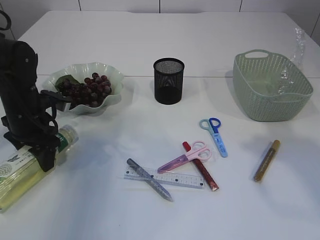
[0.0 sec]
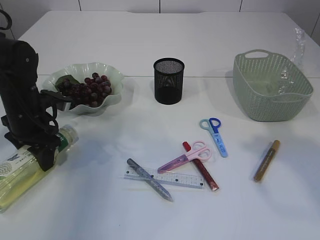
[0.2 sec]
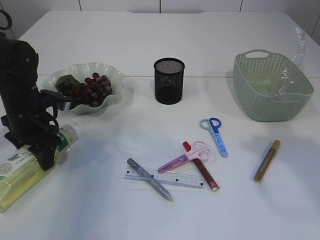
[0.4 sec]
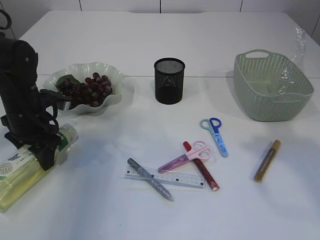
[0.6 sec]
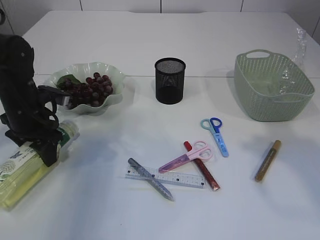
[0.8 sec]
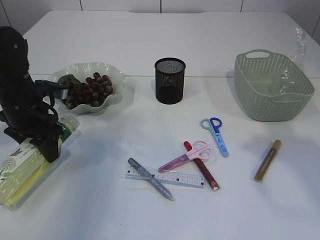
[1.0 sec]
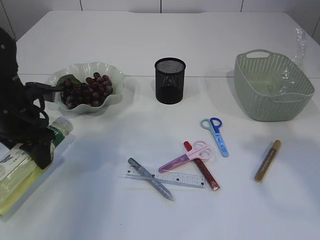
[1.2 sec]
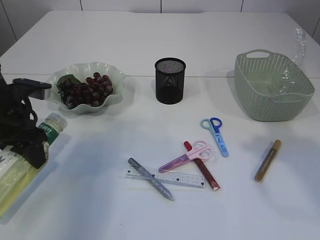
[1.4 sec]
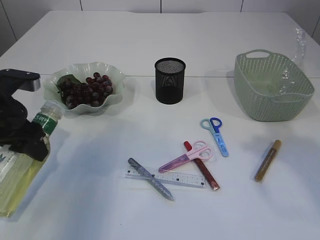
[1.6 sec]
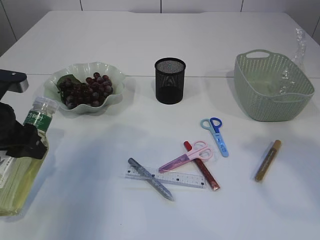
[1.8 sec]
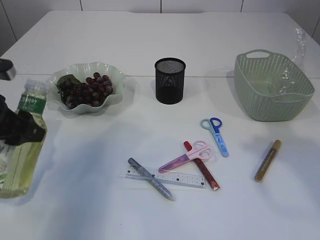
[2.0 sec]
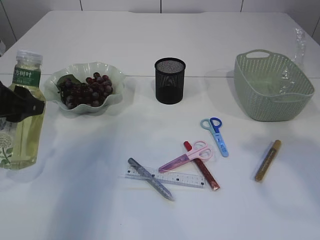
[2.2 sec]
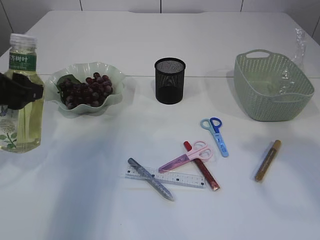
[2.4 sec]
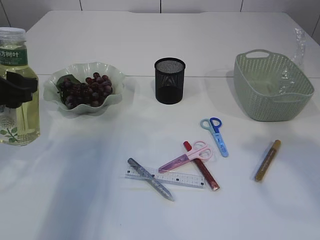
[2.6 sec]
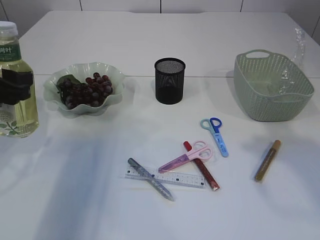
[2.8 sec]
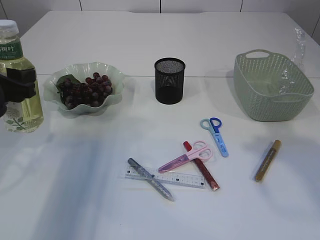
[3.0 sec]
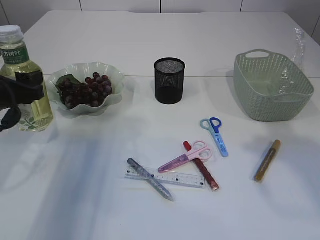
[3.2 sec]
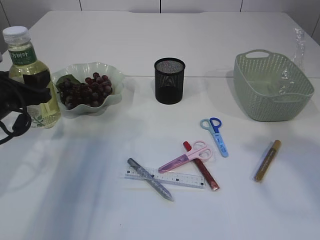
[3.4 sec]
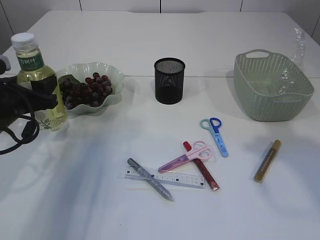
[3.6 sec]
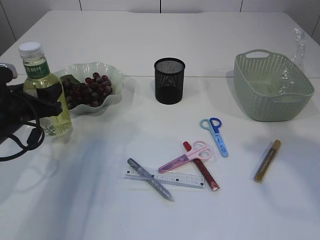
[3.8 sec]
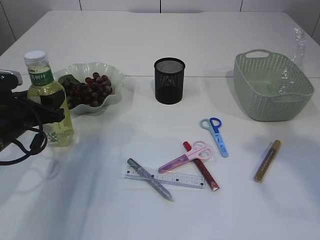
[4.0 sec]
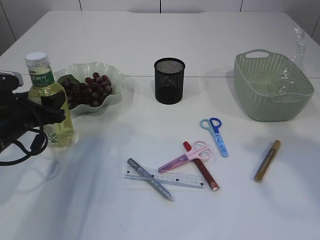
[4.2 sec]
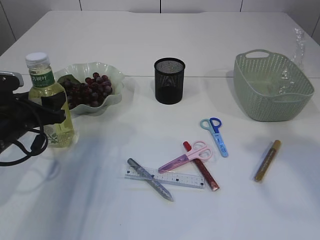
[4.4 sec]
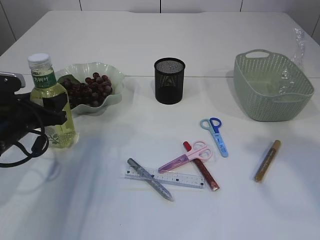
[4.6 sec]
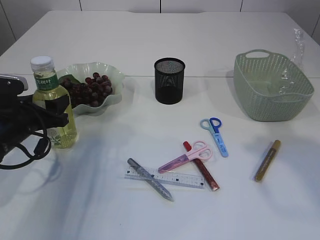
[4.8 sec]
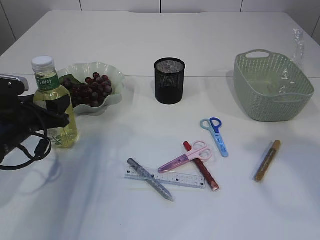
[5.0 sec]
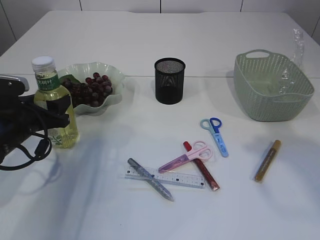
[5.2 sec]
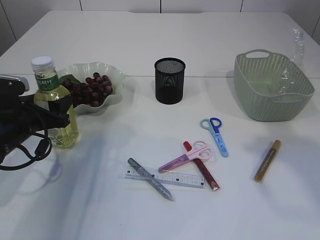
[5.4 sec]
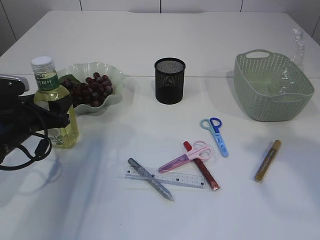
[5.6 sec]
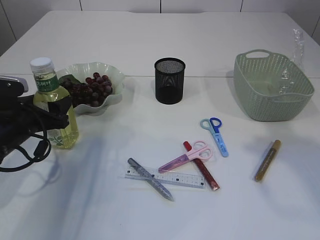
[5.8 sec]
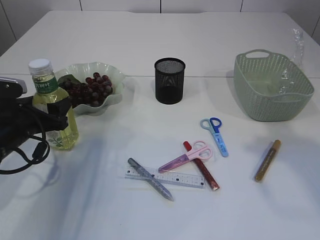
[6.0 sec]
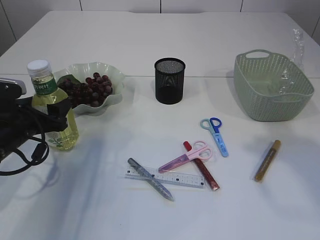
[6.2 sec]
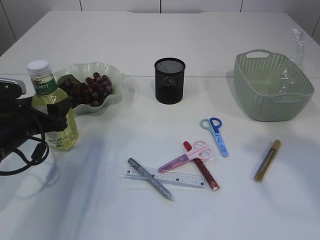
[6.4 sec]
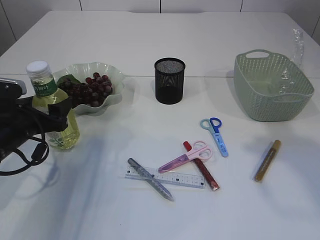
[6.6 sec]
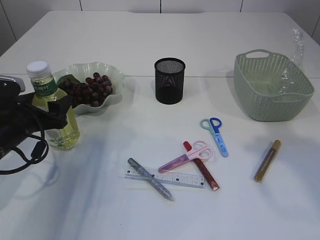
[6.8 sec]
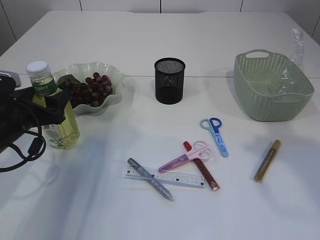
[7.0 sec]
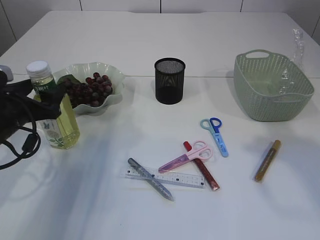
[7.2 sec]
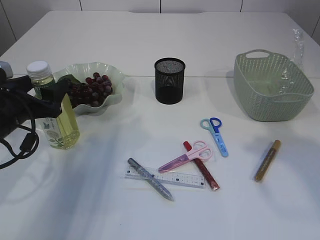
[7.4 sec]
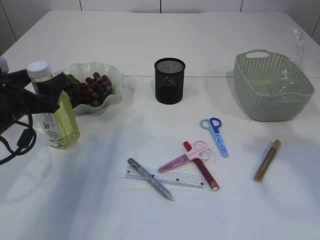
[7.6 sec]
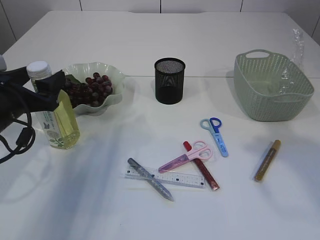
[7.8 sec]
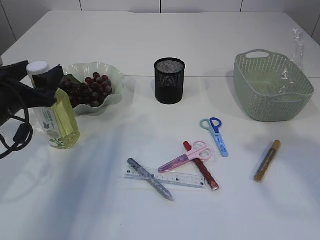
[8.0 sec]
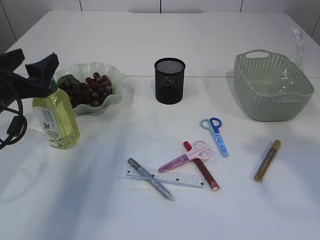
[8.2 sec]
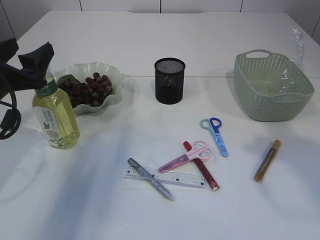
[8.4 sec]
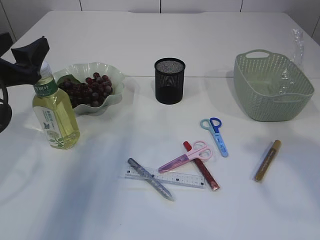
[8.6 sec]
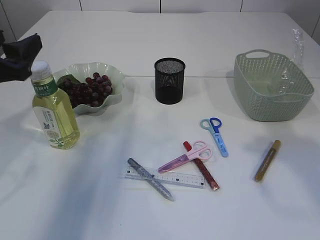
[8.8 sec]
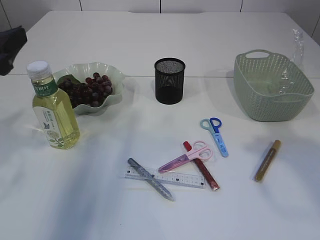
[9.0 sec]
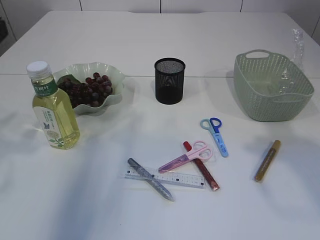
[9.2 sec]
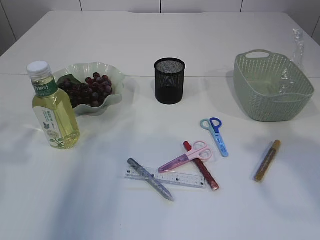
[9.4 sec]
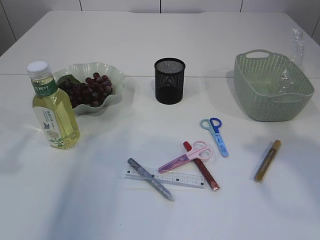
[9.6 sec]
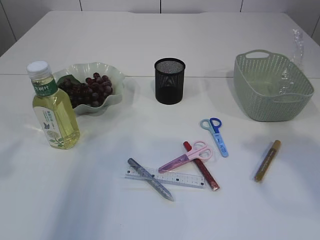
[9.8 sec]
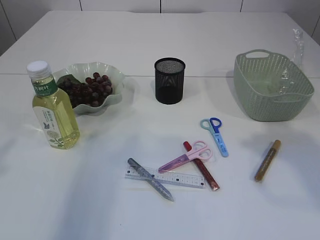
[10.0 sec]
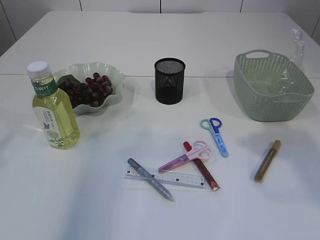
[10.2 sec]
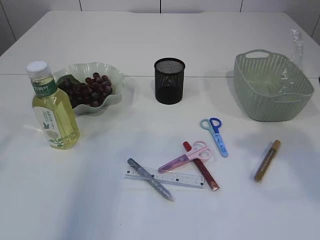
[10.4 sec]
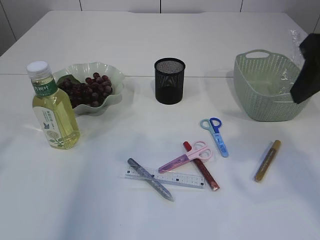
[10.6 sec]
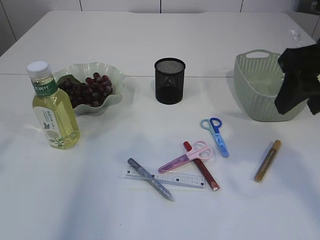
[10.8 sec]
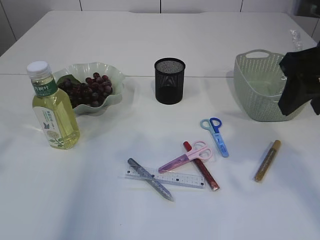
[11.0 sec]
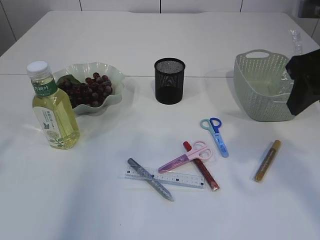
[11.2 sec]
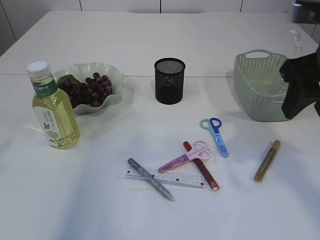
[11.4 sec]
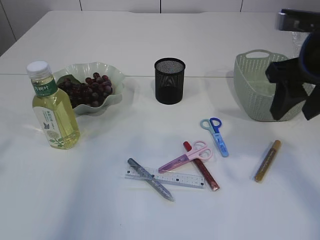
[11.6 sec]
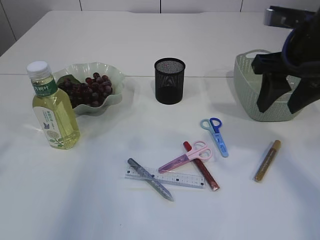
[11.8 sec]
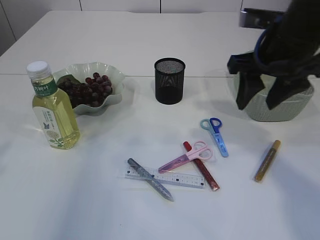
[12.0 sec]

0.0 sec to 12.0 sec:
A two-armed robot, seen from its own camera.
Step, 1.4 sec to 8.8 sec: Place the bottle.
0.0 sec to 1.6 sec: The left gripper travels backward and upward by about 10 cm.
3.0 sec to 4.4 sec: The left gripper moves downward, roughly 10 cm.
4.4 sec to 6.0 sec: Neither gripper changes place.
6.0 sec to 7.6 sec: The left gripper changes place by some 5 cm.
7.6 sec to 9.0 sec: The left gripper moves upward and backward, about 10 cm.
9.0 sec to 10.4 sec: The left gripper travels upward and backward by some 15 cm.
10.4 sec to 12.0 sec: The right gripper moves forward, to the left and downward, approximately 15 cm.

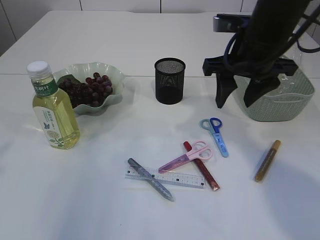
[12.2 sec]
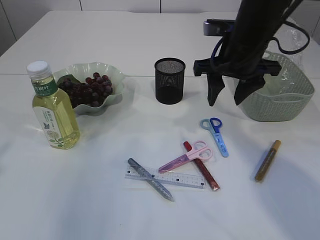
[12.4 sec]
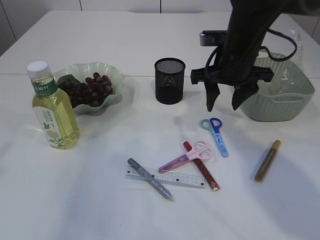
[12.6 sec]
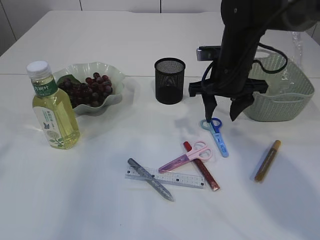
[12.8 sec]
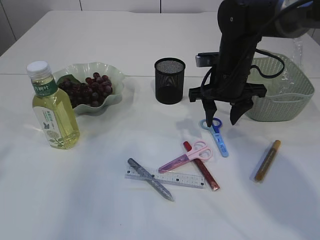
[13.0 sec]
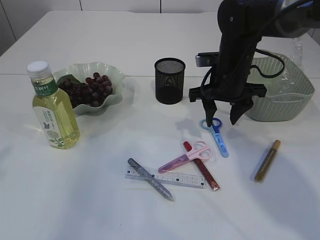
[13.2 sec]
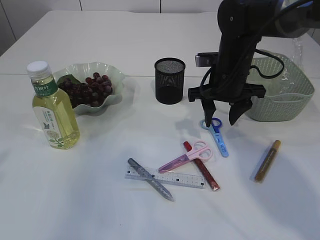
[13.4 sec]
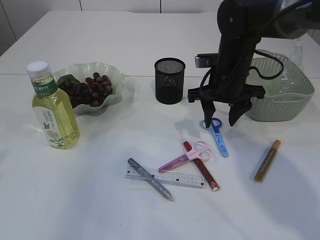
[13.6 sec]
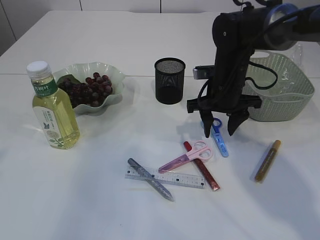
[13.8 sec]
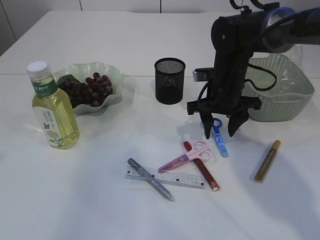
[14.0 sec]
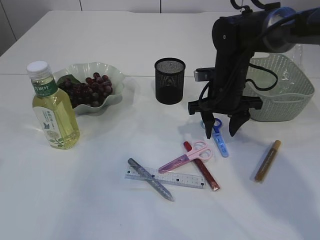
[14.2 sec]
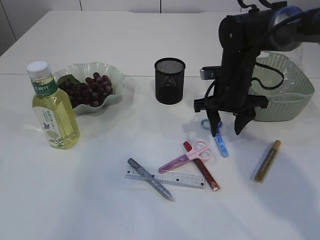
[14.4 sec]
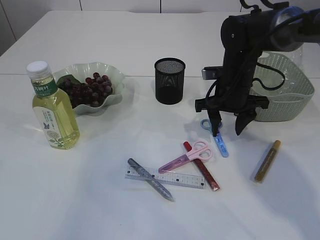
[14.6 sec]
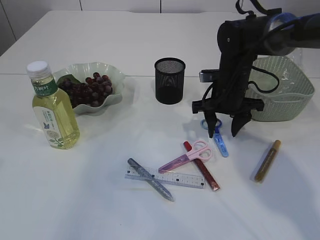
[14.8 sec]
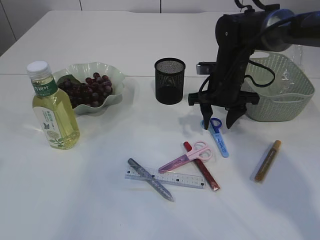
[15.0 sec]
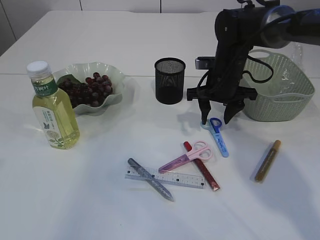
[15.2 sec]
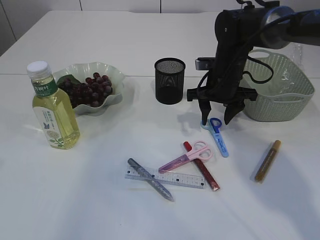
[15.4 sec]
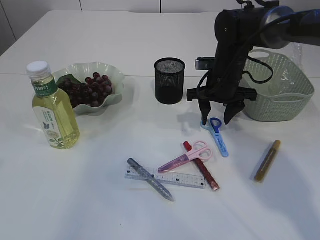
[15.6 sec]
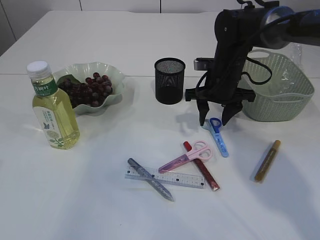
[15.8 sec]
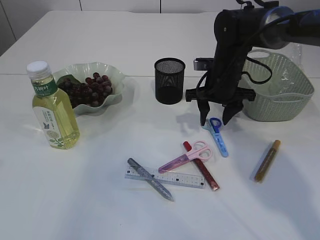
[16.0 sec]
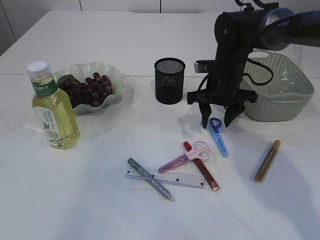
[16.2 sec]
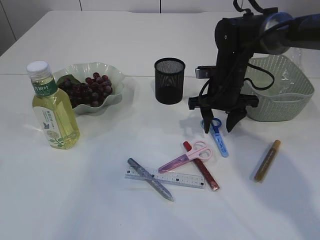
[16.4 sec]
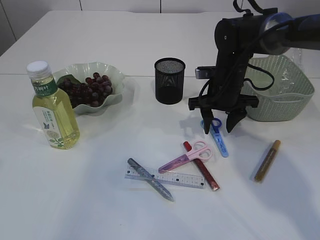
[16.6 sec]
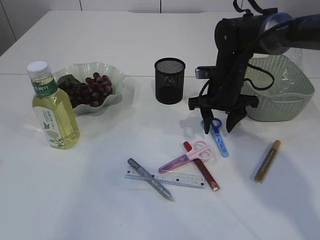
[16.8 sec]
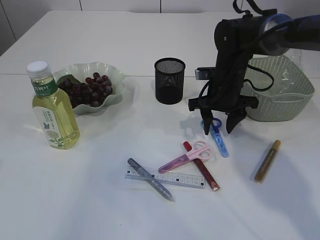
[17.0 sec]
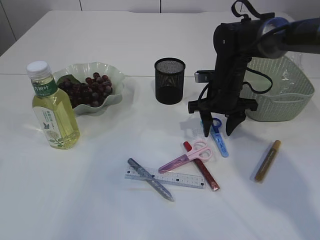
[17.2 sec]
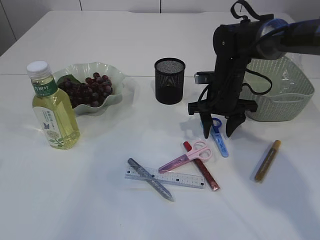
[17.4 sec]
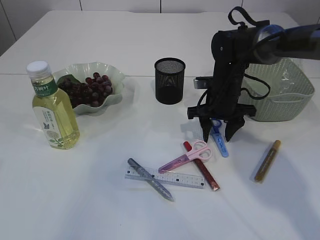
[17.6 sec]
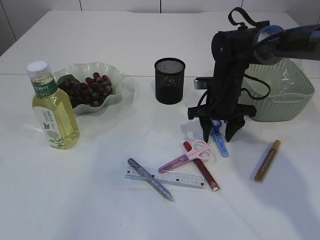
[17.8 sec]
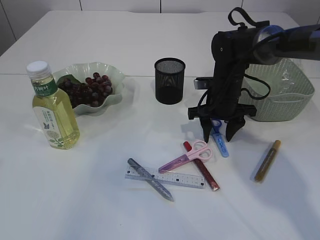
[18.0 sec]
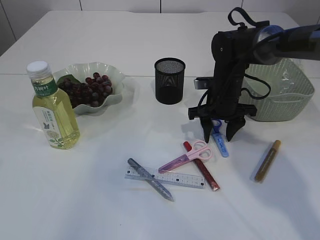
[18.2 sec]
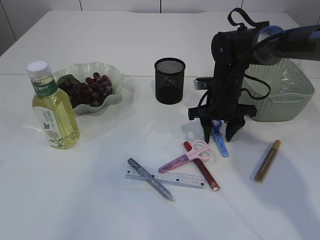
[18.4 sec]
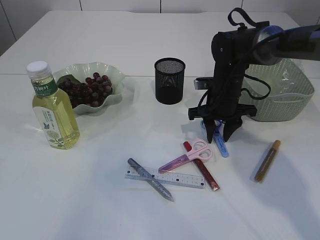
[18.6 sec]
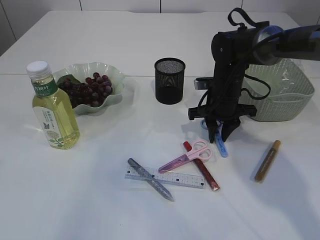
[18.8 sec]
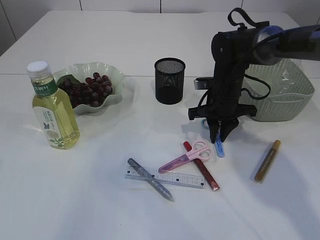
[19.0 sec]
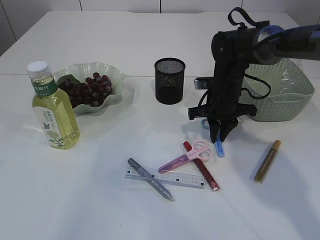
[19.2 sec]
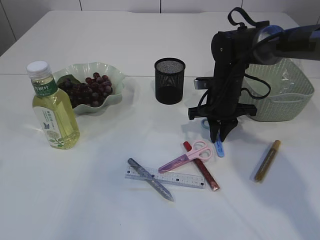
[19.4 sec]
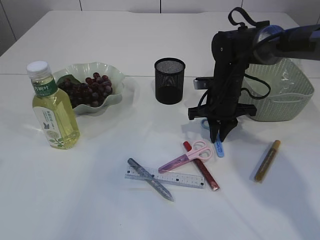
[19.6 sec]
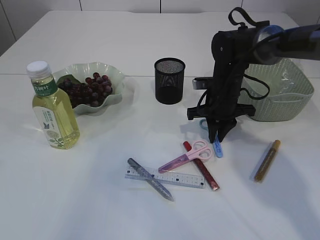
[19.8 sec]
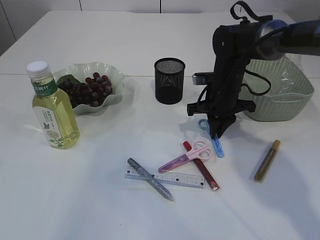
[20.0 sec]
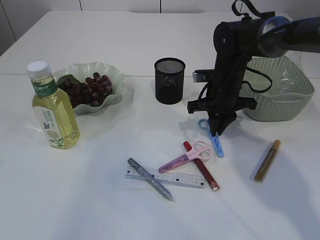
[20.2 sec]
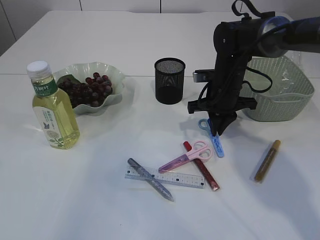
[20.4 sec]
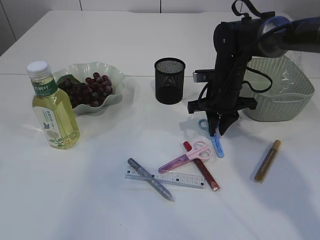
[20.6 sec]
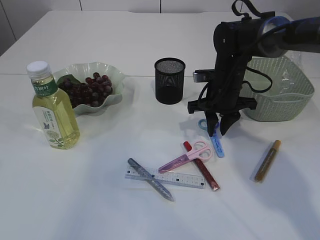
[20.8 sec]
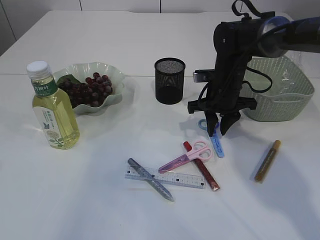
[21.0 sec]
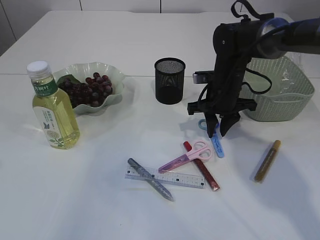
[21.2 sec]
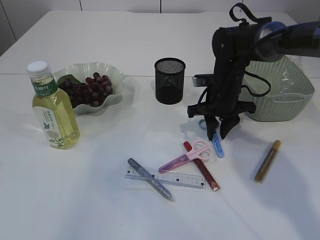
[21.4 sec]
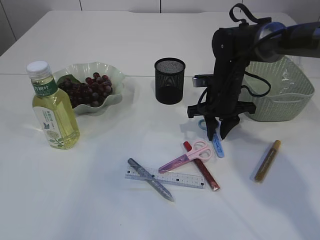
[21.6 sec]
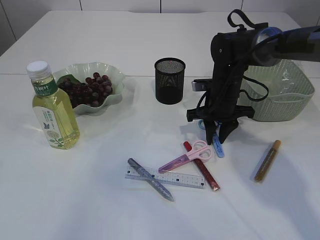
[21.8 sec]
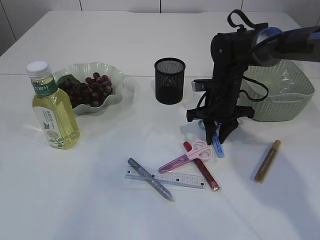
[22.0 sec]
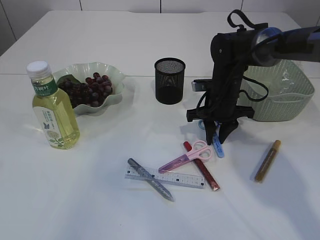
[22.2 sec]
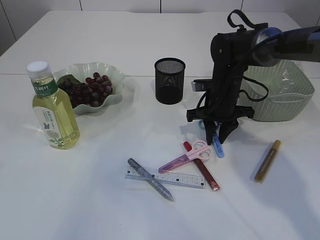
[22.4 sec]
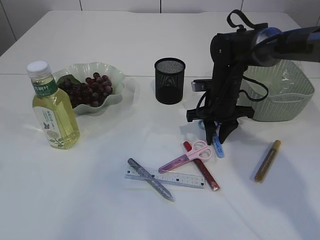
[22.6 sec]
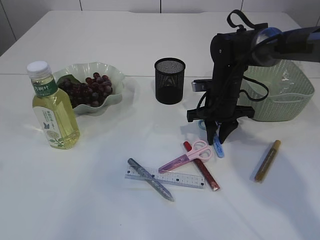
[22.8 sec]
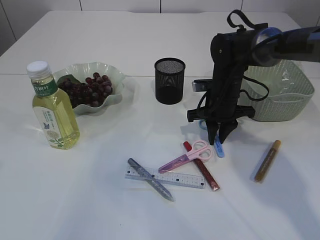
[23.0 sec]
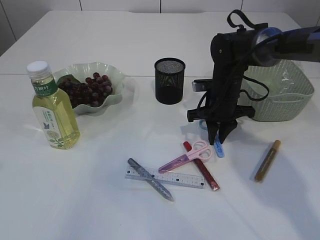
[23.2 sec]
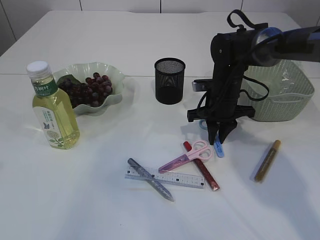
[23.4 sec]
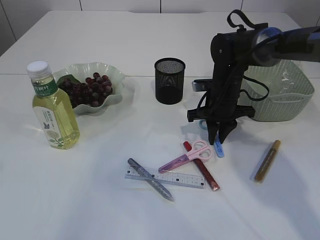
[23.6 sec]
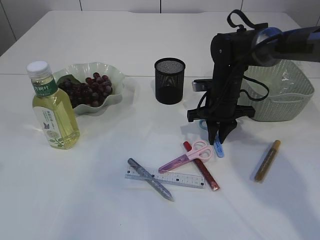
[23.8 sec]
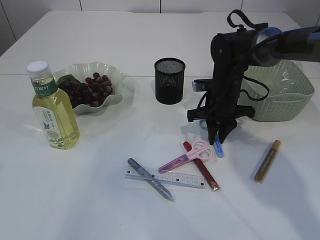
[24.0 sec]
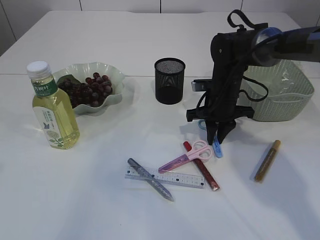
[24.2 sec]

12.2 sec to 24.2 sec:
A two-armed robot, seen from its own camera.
12.2 sec to 13.8 sec: The right gripper moves downward and forward, some 15 cm.
13.8 sec to 18.2 sec: The grippers make only small movements.
18.2 sec to 19.8 sec: The right gripper closes its fingers.
19.8 sec to 22.6 sec: The grippers make only small movements.
22.6 sec to 24.2 sec: Neither gripper changes place.
